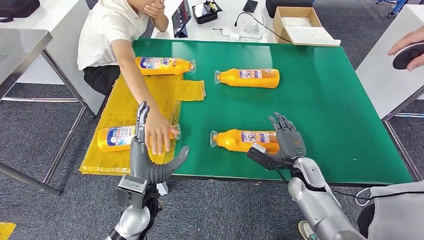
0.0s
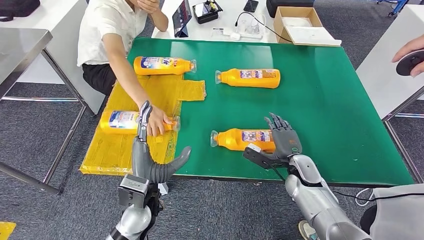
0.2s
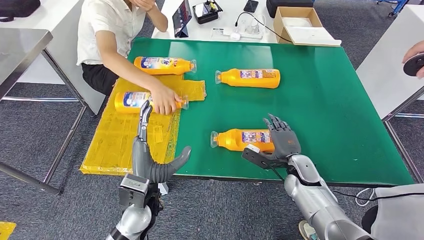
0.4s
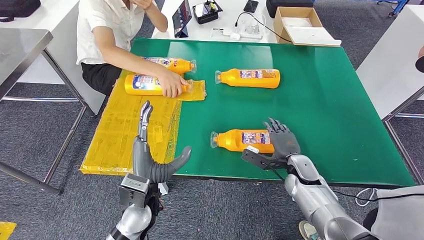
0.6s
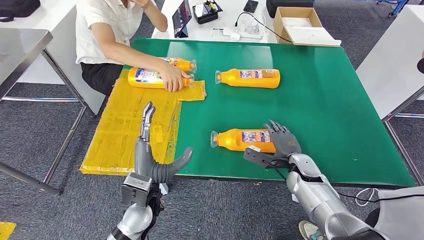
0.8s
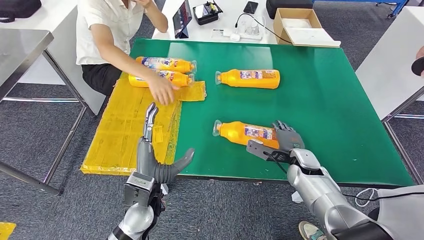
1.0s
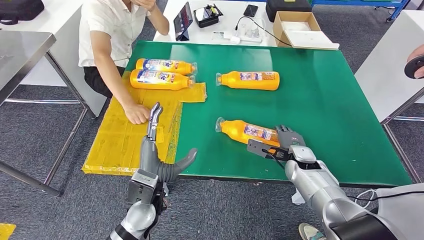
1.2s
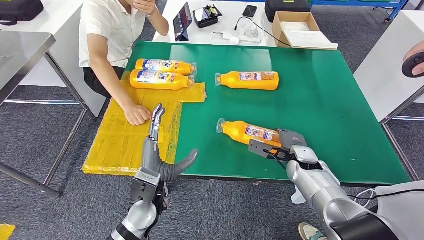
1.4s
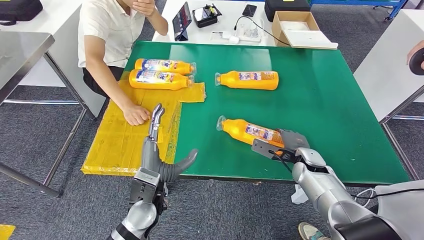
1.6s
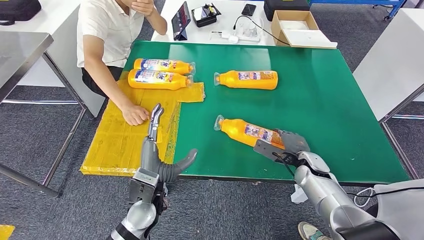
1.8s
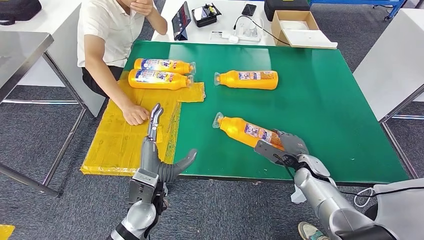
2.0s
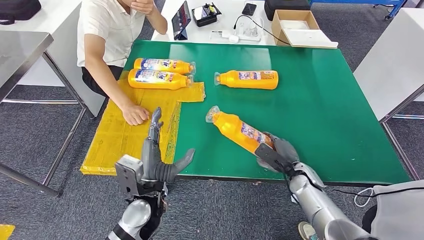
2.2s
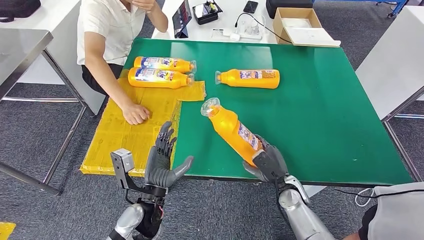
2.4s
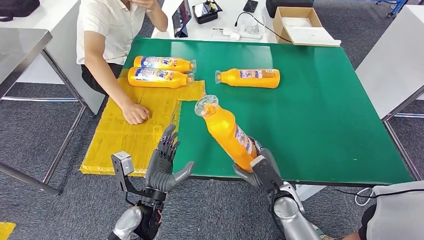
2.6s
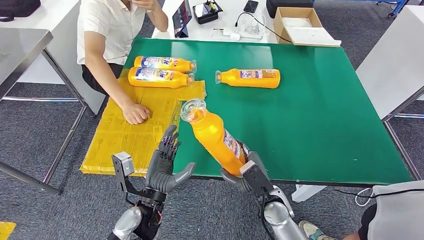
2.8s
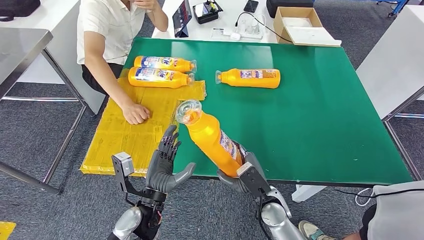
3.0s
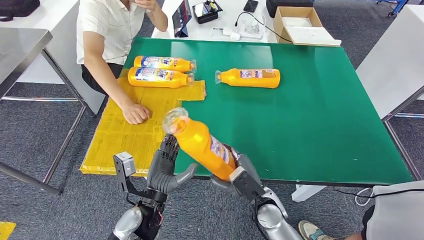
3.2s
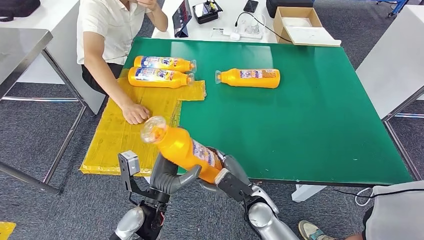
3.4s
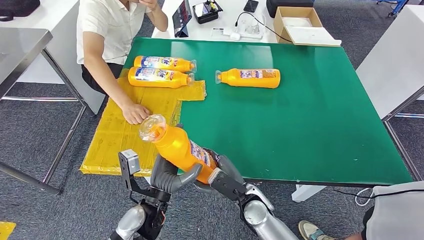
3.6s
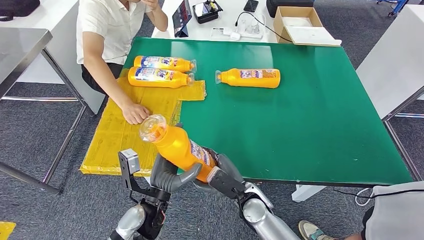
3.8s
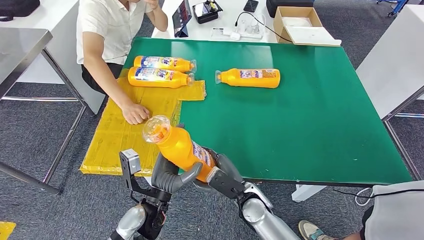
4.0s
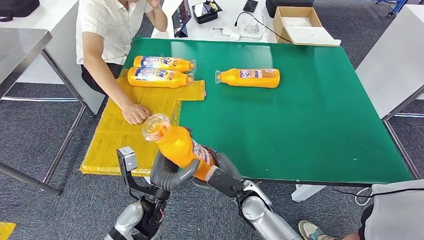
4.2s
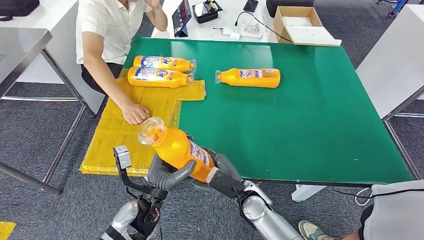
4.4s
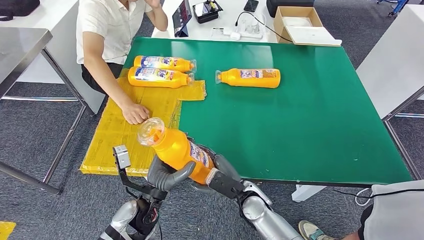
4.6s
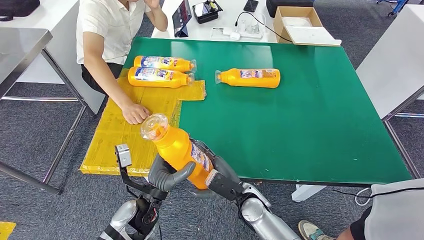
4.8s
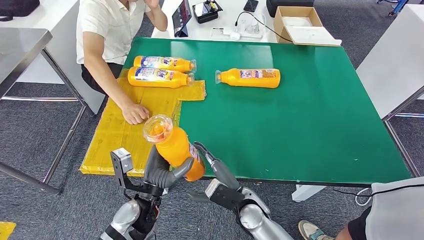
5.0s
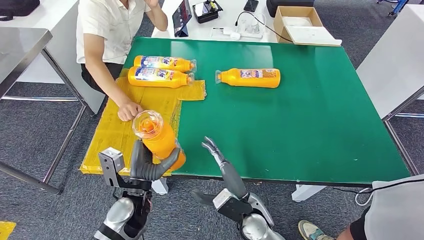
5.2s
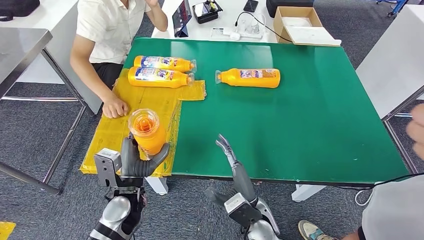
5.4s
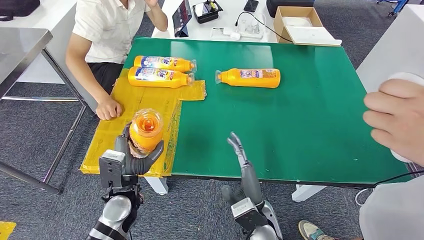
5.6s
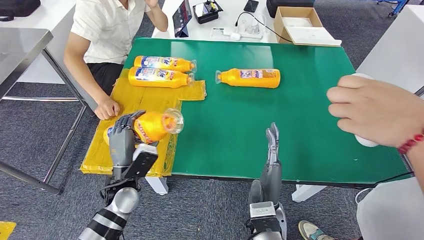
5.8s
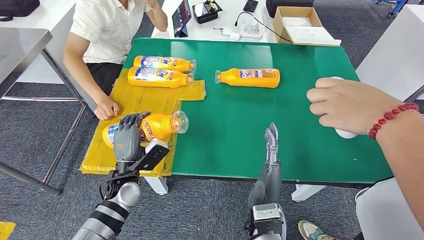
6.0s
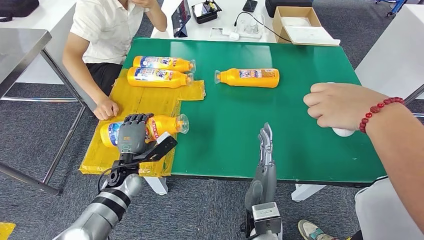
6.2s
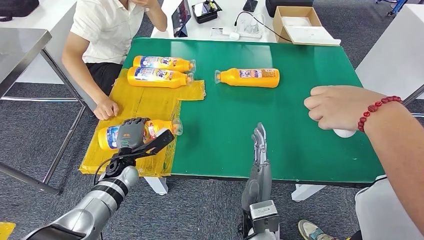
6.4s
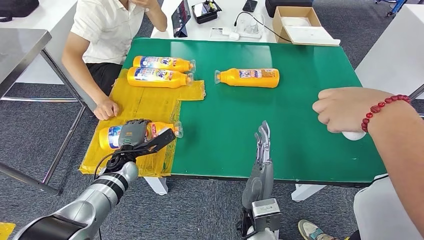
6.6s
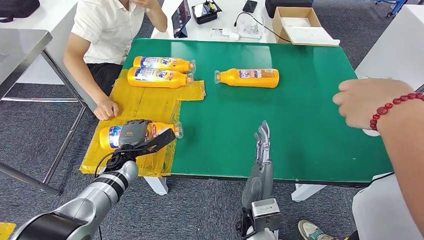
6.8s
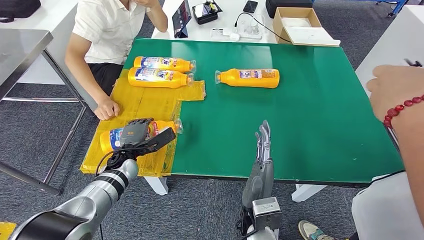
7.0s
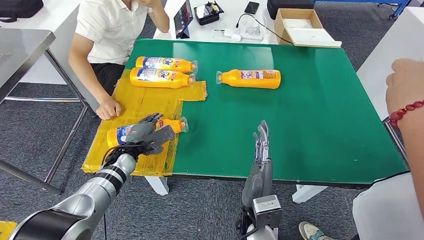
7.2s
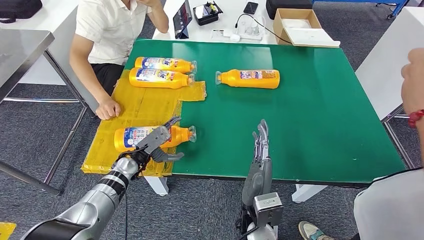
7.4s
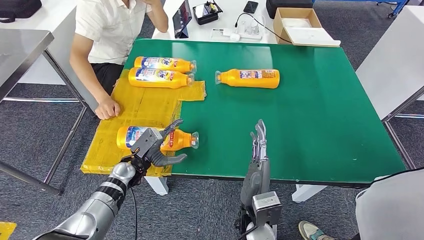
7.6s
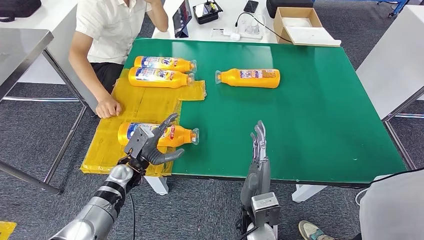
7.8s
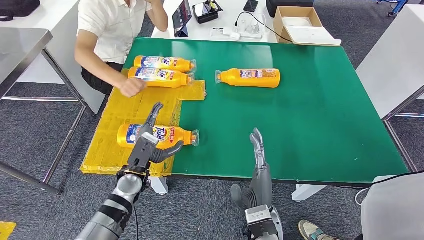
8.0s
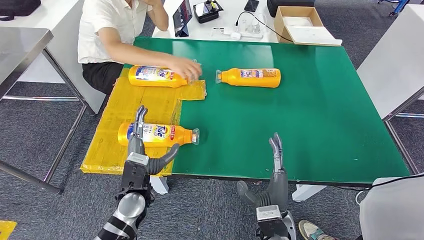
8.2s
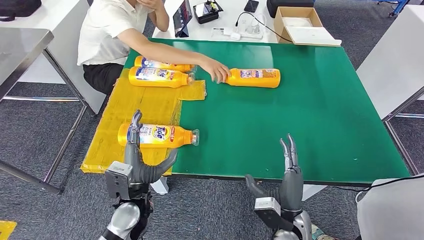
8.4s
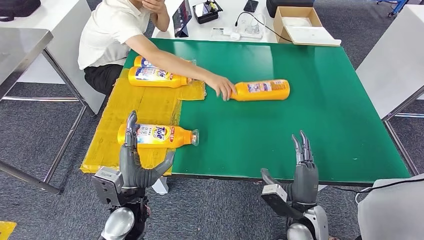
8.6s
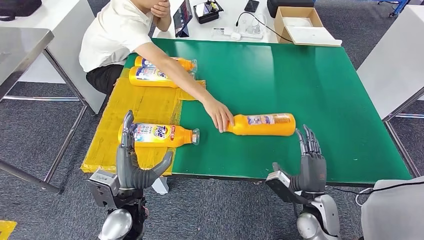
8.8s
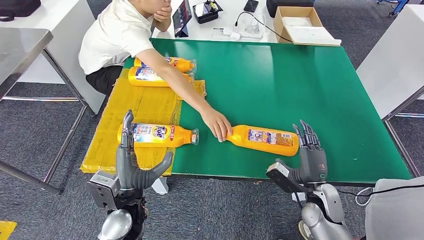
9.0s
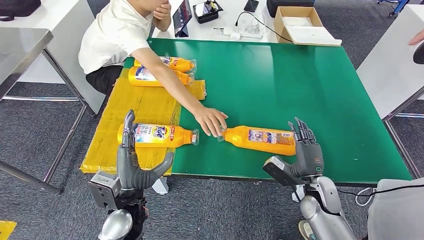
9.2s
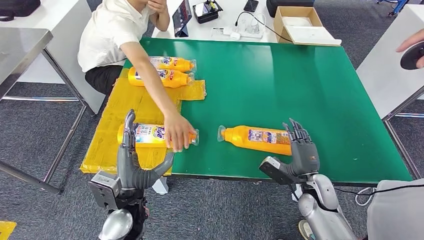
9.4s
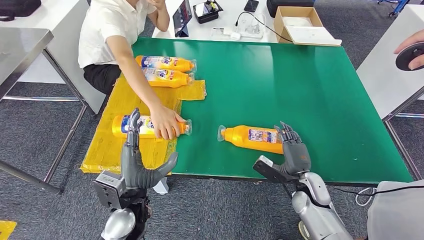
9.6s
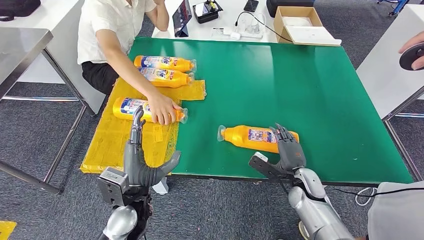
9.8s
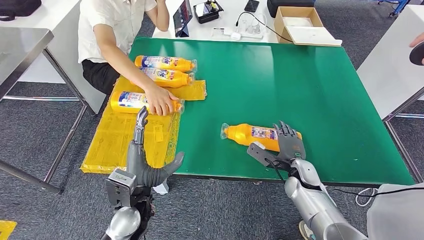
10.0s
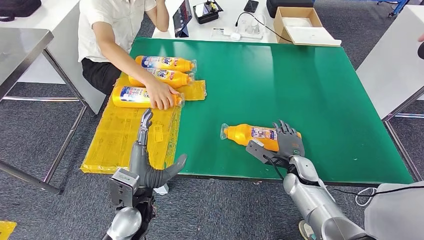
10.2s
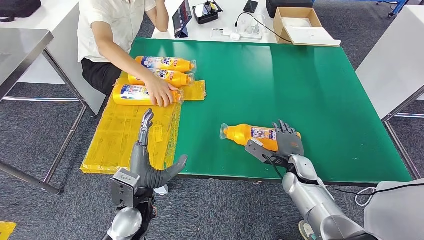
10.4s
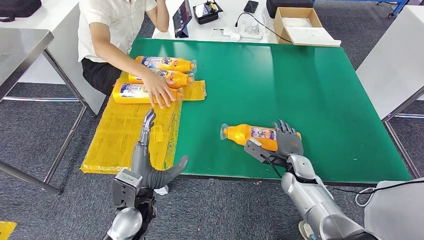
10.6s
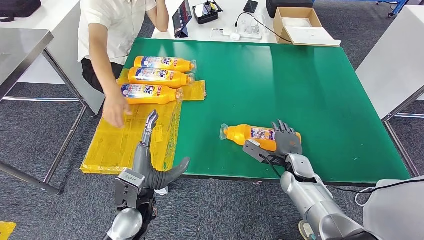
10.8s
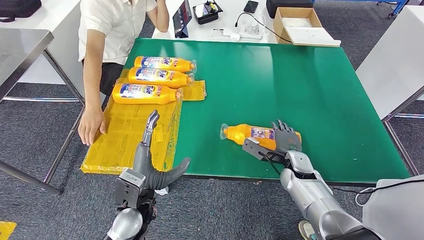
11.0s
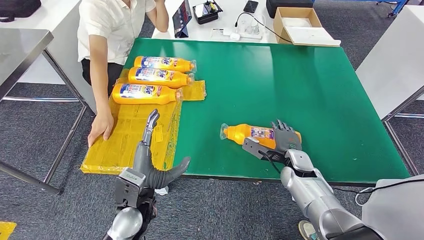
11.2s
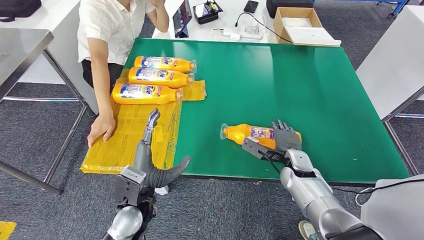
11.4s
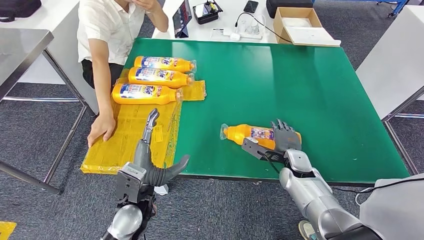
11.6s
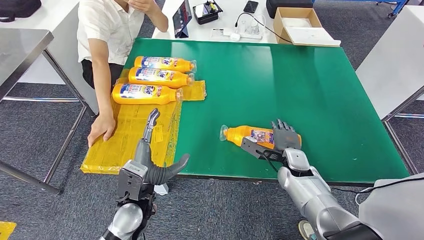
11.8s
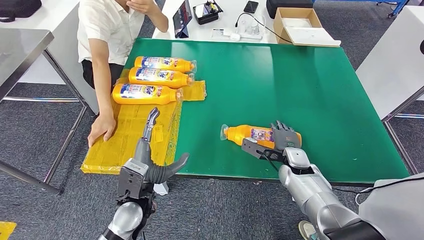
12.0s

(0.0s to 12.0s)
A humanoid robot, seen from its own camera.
Step, 1.2s - 3.2s: Pick up the fast-moving consumer goods bottle from the table.
Step, 3.4s - 7.8s: Flip the fast-moving consumer goods bottle to the front side.
3.0s - 4.4s: The right hand travels to the left by some 5 cm.
10.4s - 12.0s: The hands make only small movements.

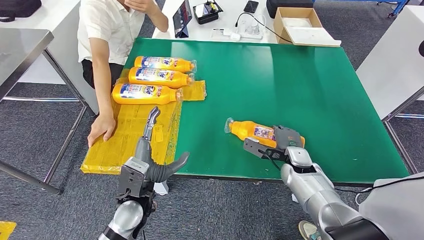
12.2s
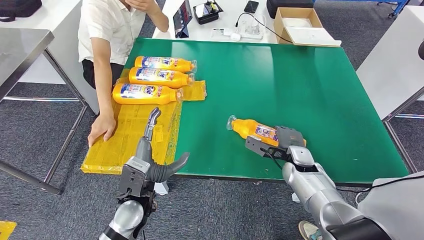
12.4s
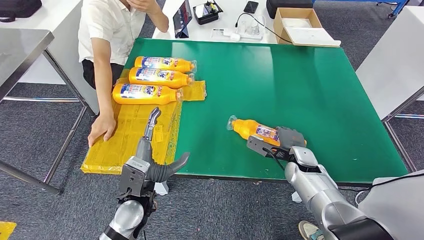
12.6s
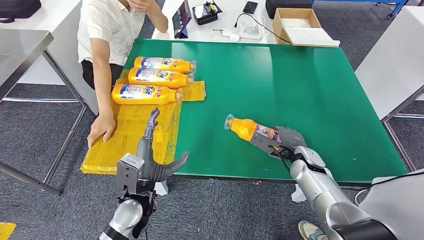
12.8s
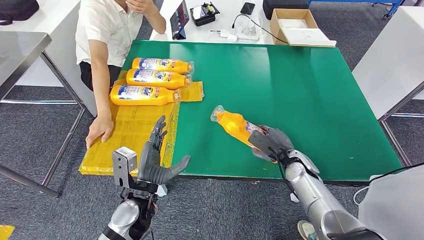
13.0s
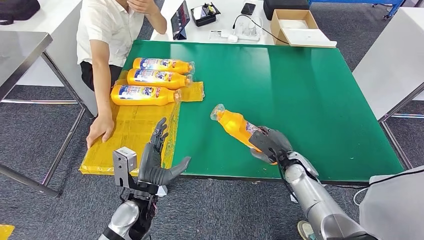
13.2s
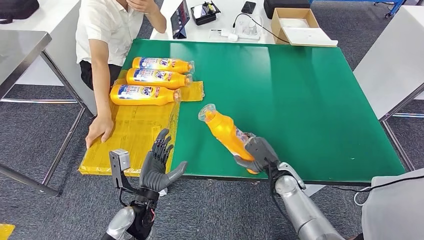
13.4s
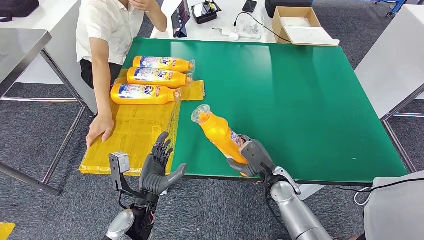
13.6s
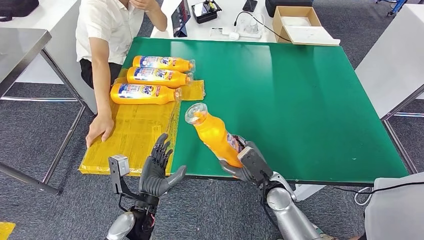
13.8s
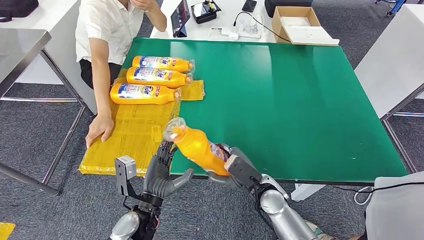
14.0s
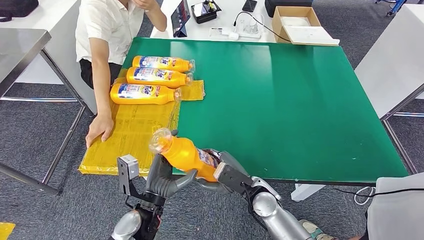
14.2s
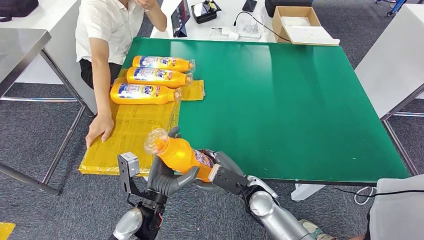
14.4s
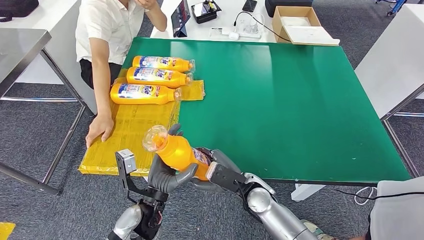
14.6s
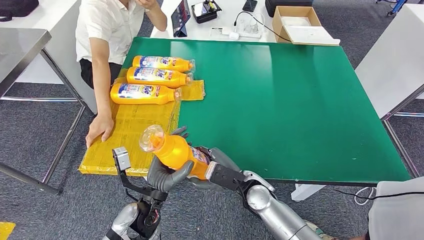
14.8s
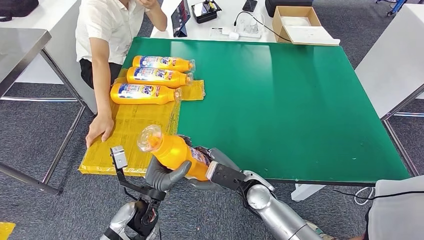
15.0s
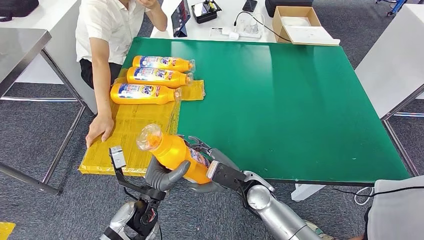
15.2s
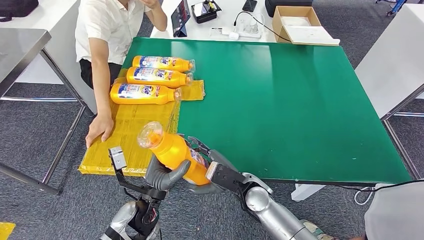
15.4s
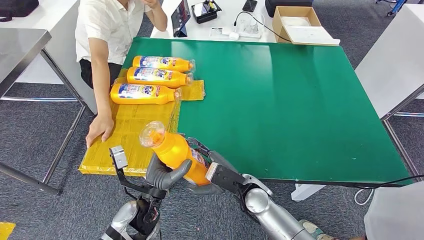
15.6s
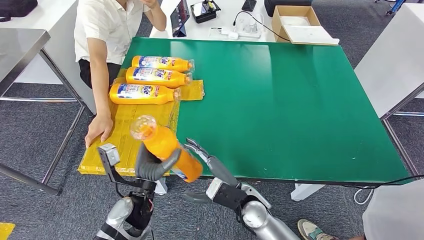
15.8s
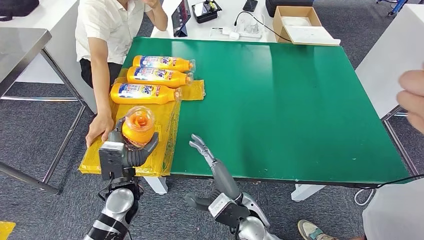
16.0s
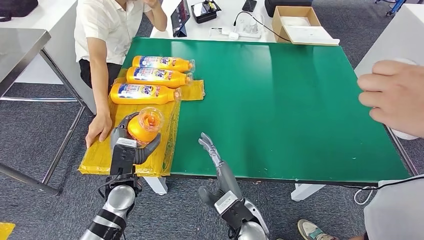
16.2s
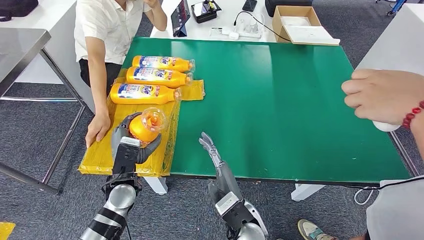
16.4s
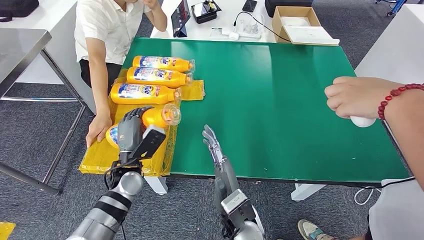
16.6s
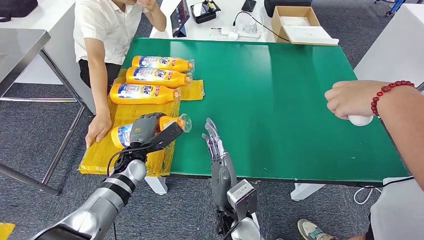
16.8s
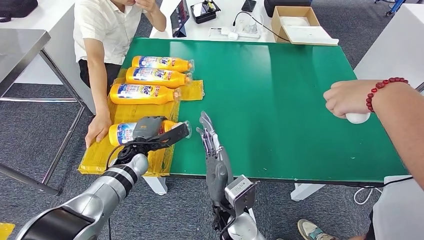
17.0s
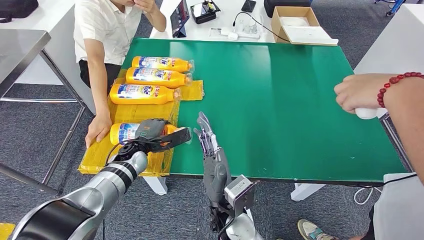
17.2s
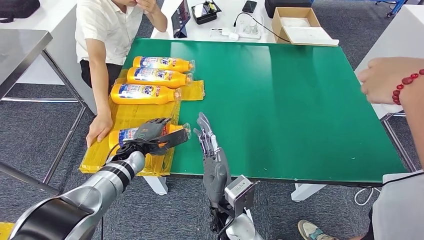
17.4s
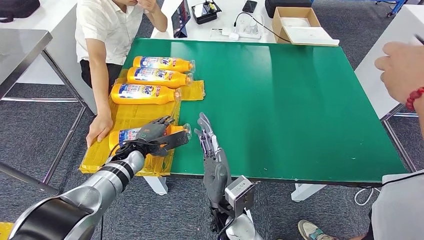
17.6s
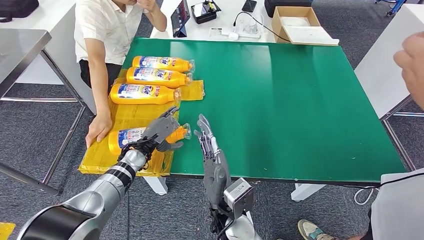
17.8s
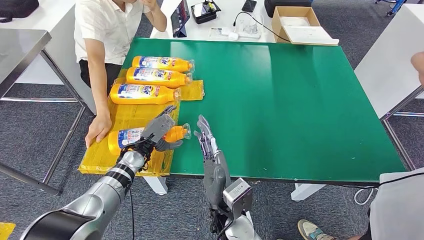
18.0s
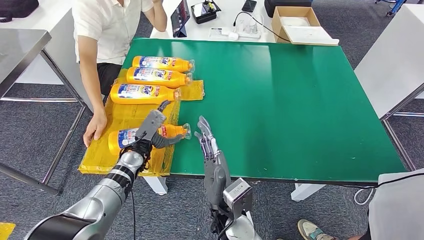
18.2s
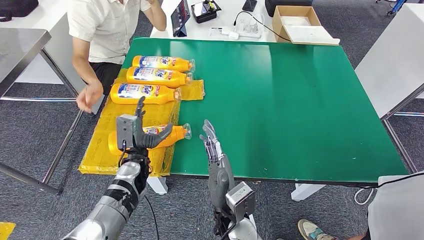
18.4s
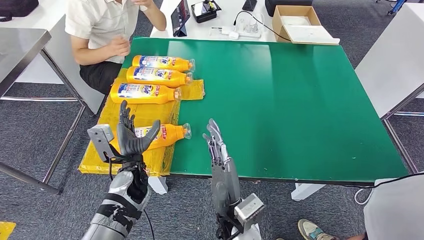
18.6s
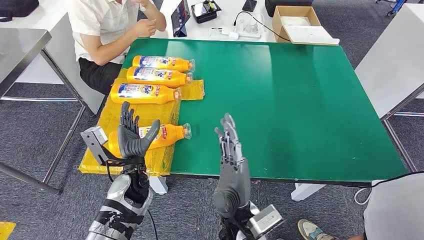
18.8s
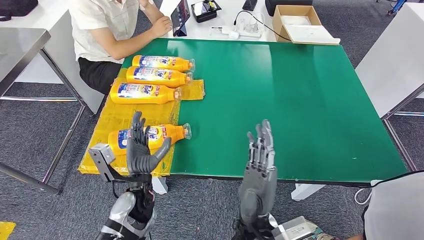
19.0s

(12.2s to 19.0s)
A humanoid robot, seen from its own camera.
Step, 12.2s - 14.6s: Pick up the fast-moving consumer goods bottle from the table.
Step, 14.8s - 19.0s: Flip the fast-moving consumer goods bottle to the front side.
12.2s - 13.6s: The right hand is displaced backward and to the left by approximately 10 cm.
13.6s - 15.0s: The right hand is displaced to the left by approximately 10 cm.
15.0s - 16.2s: The left hand goes about 10 cm to the left and forward, while the right hand is displaced backward by about 10 cm.
16.2s - 17.6s: The right hand ends up about 5 cm from where it was. Meanwhile the left hand moves forward, about 10 cm.
